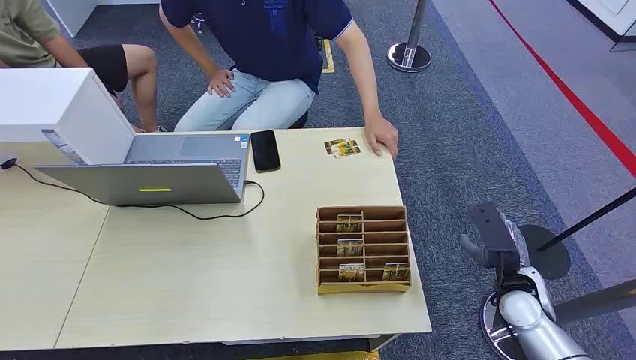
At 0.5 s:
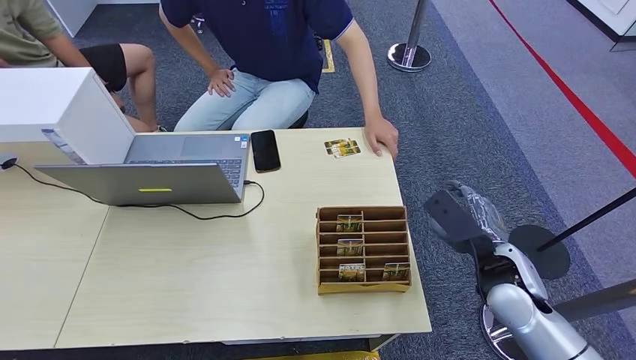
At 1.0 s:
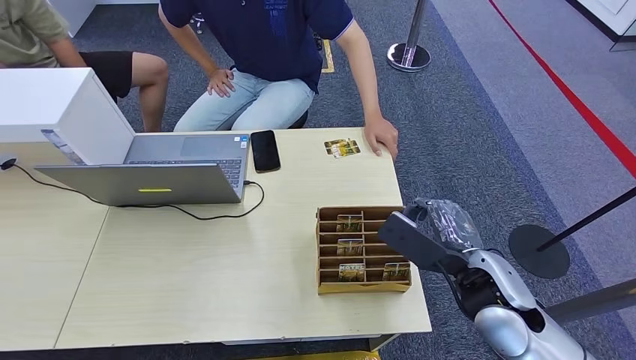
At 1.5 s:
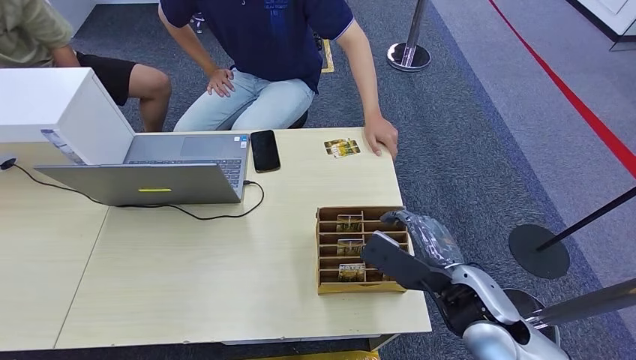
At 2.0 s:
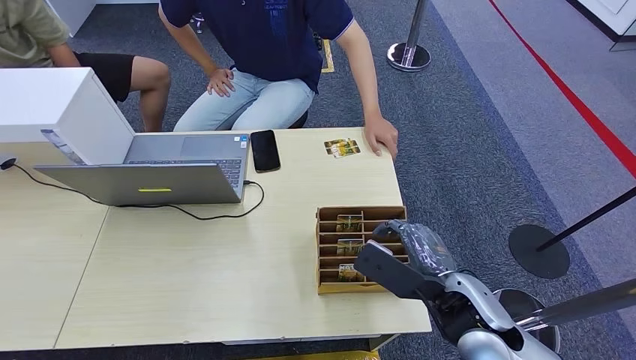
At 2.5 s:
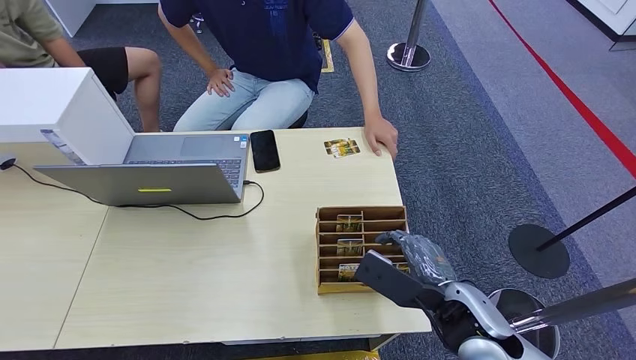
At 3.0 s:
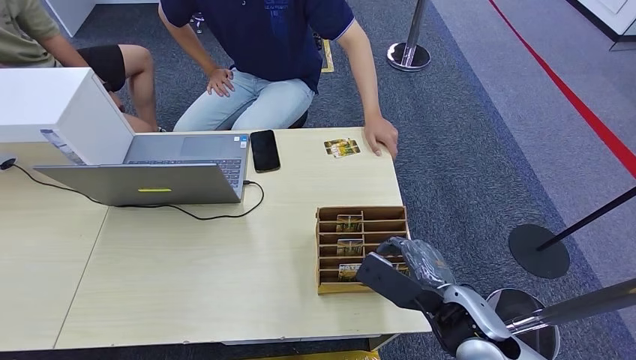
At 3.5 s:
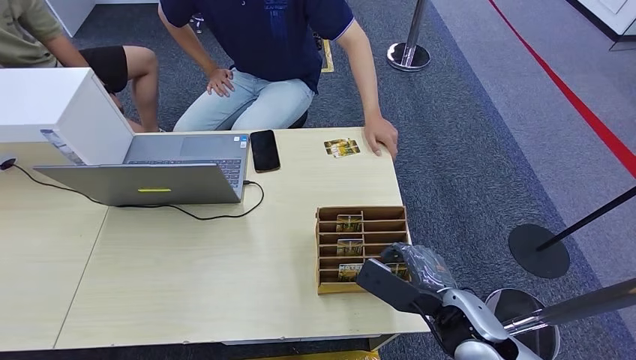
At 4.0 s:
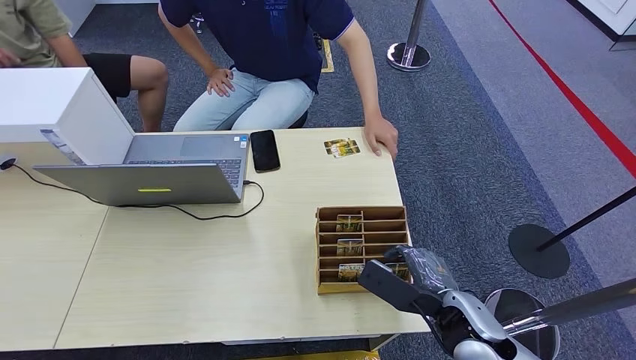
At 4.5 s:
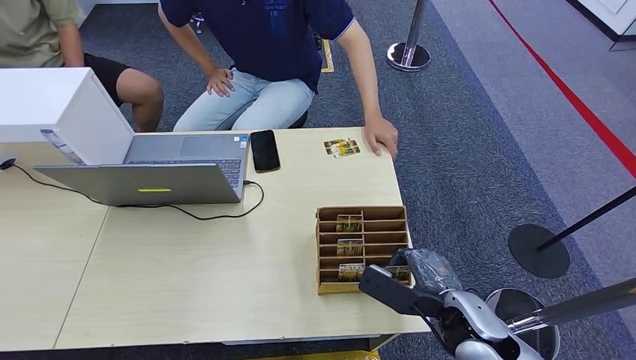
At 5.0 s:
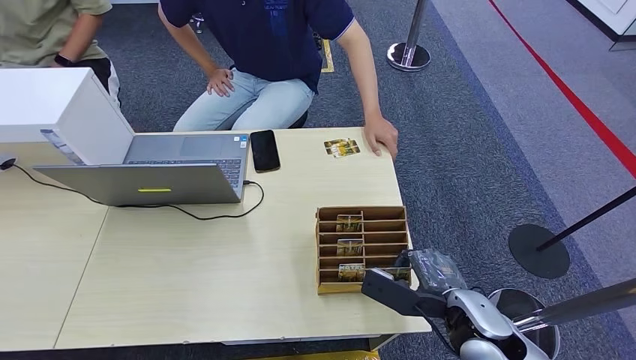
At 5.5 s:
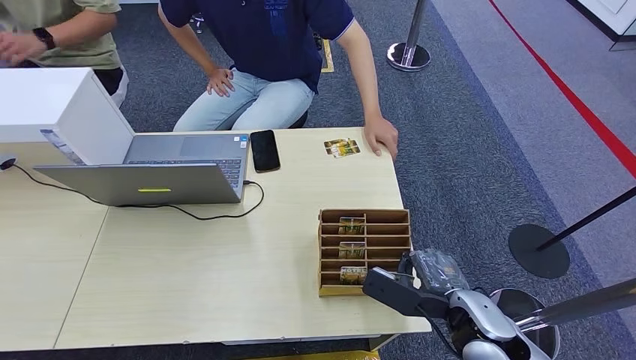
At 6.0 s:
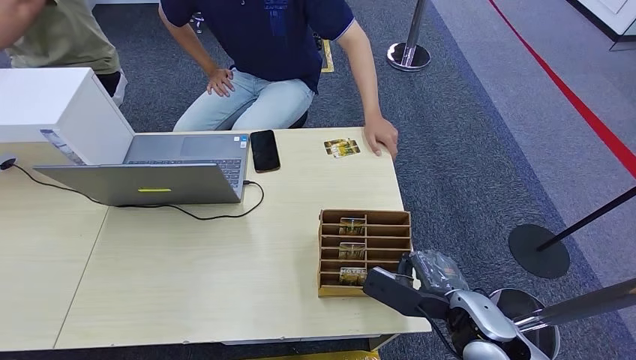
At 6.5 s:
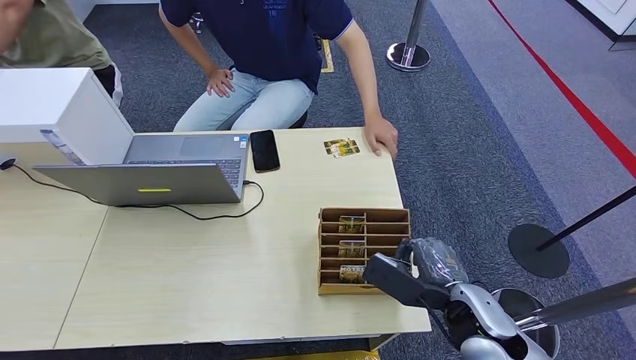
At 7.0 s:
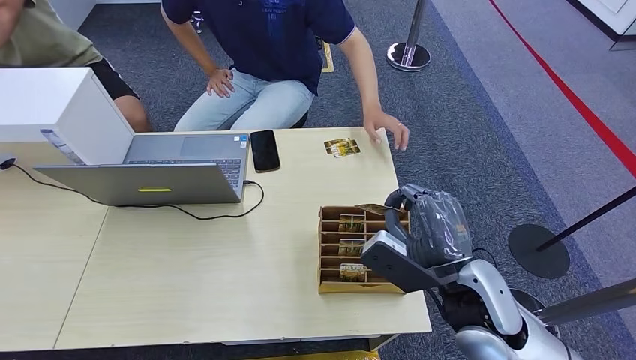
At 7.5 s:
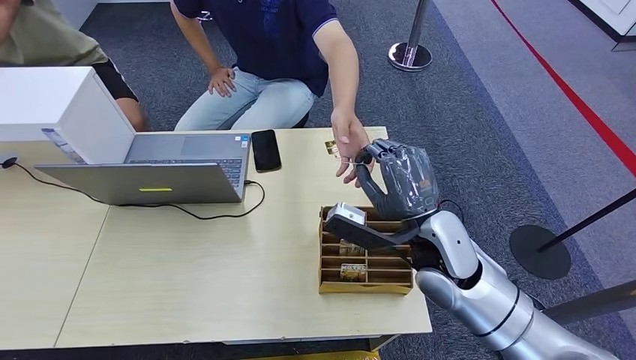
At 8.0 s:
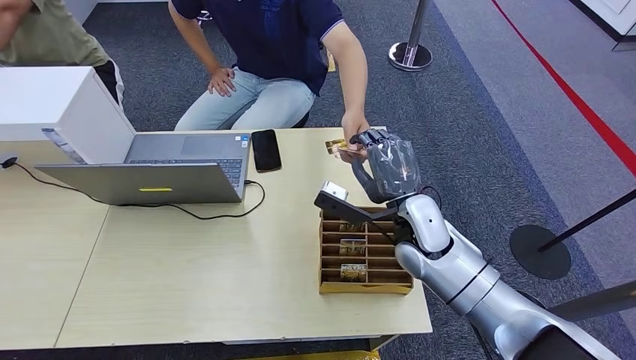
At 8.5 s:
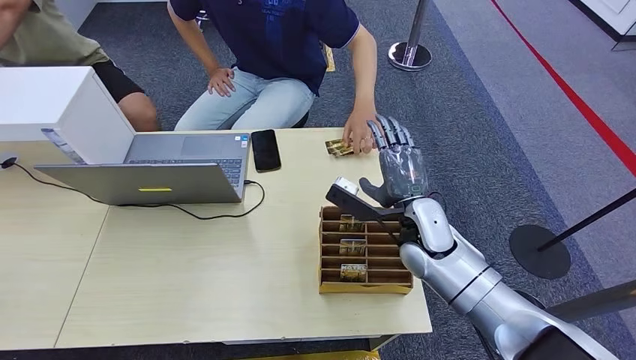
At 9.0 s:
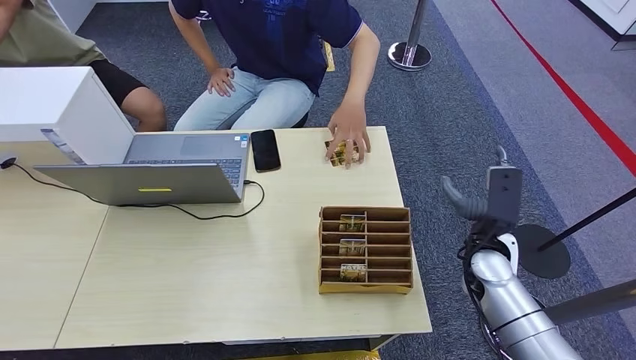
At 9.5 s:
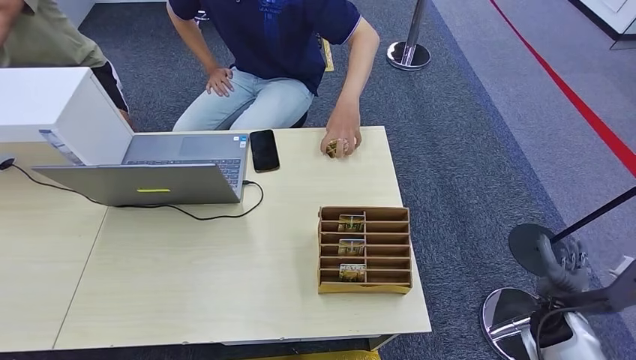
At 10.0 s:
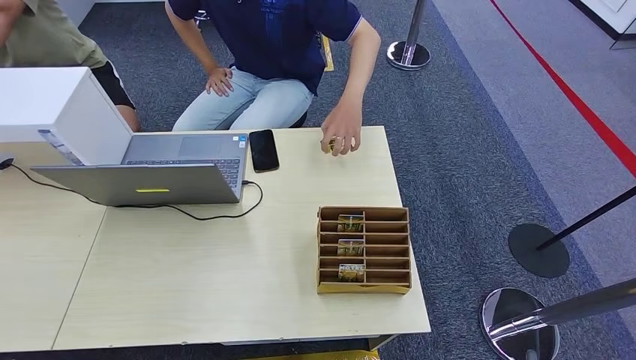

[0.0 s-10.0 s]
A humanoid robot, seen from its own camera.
Step, 0.0 to 6.0 s: Pick up the key card from the card box.
Step, 6.5 to 10.0 s: Hand the key card to the target.
2.0 to 4.0 s: The right hand moves downward, approximately 5 cm.
4.0 to 6.0 s: There are only small adjustments of the hands.
6.0 to 8.0 s: The right hand goes some 15 cm forward and to the left.
8.0 to 10.0 s: The right hand heads downward, backward and to the right, covering approximately 40 cm.
